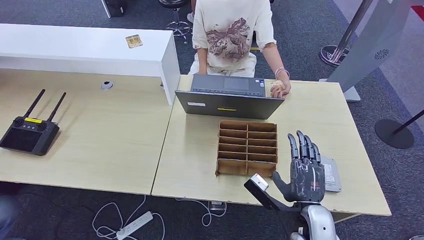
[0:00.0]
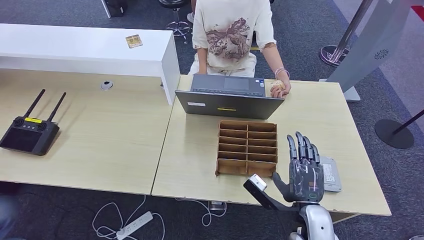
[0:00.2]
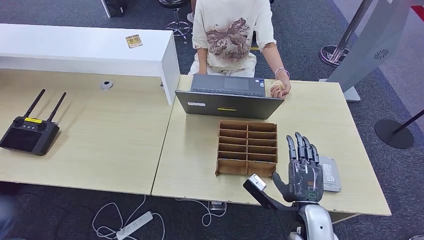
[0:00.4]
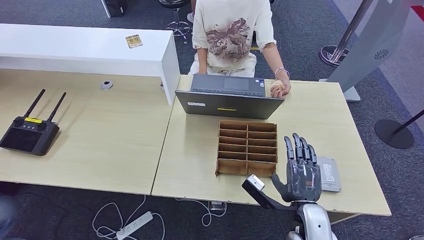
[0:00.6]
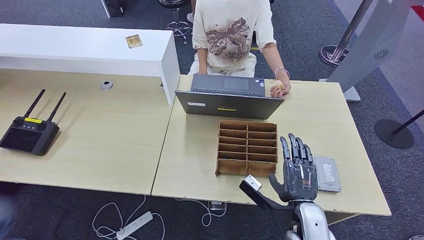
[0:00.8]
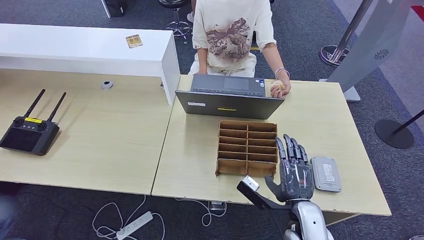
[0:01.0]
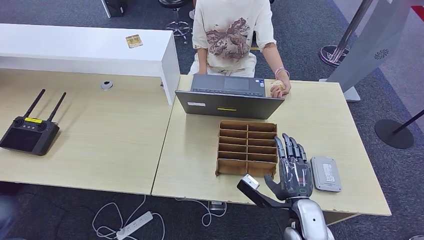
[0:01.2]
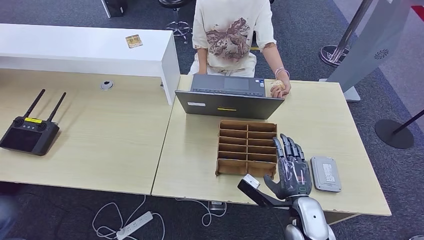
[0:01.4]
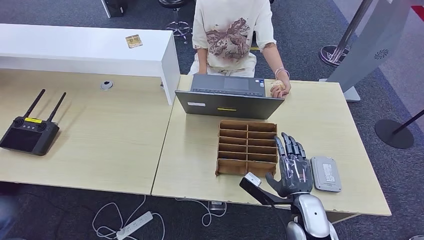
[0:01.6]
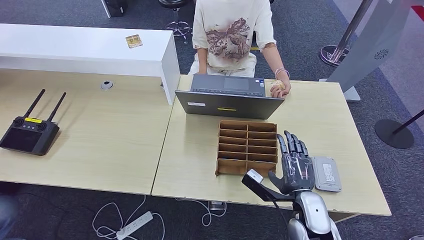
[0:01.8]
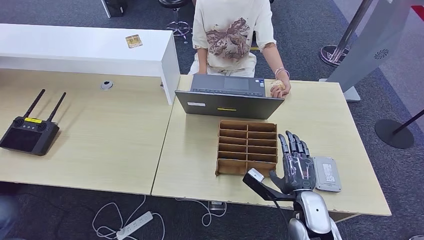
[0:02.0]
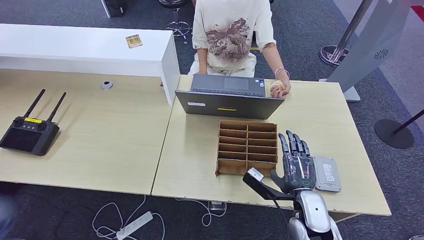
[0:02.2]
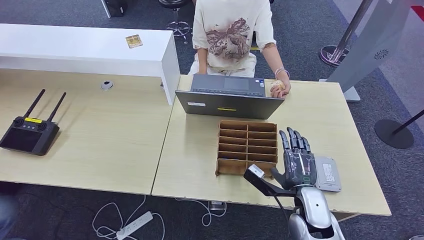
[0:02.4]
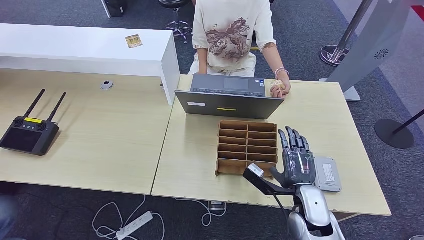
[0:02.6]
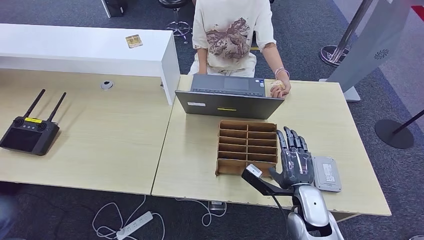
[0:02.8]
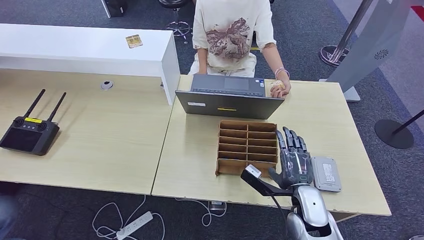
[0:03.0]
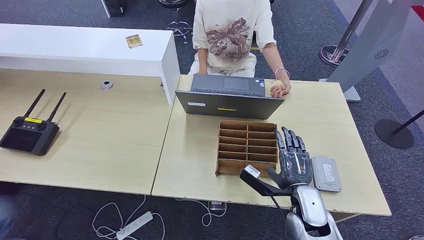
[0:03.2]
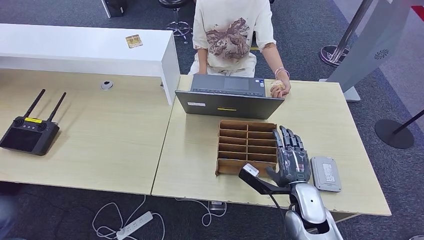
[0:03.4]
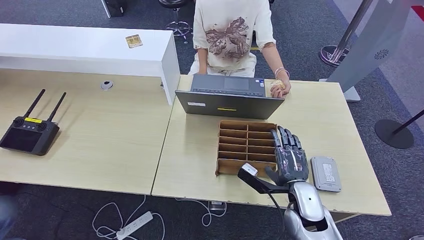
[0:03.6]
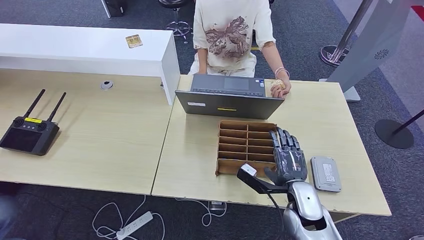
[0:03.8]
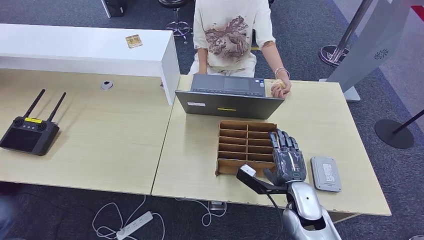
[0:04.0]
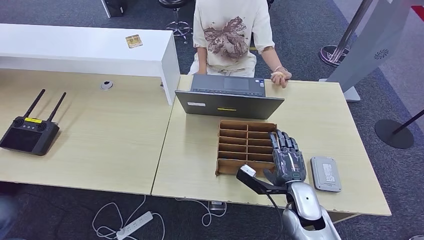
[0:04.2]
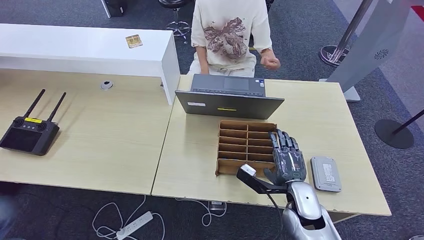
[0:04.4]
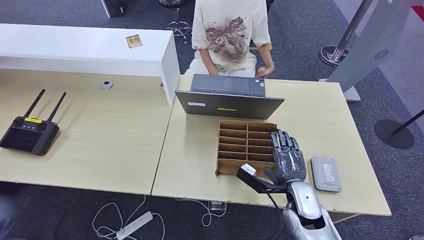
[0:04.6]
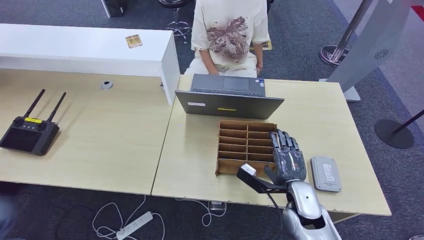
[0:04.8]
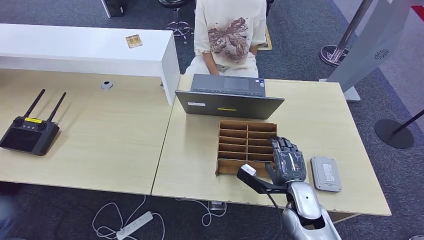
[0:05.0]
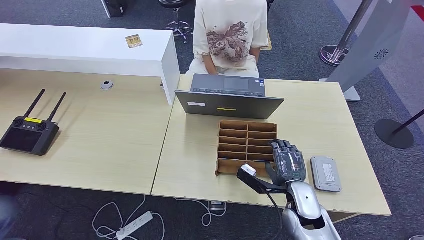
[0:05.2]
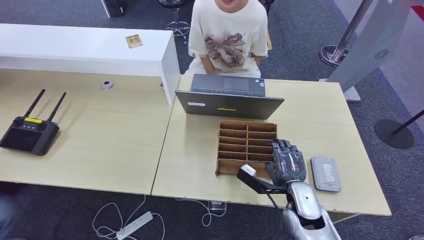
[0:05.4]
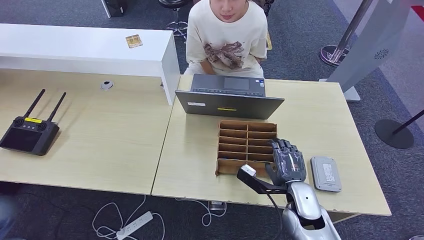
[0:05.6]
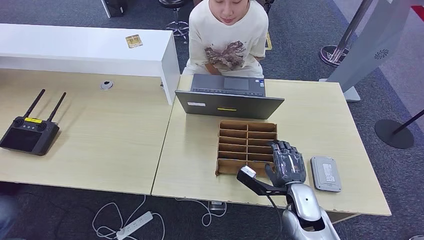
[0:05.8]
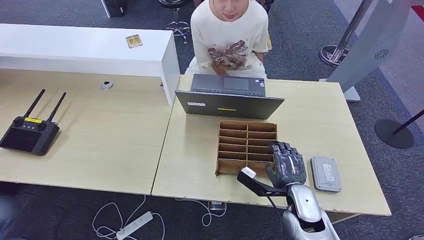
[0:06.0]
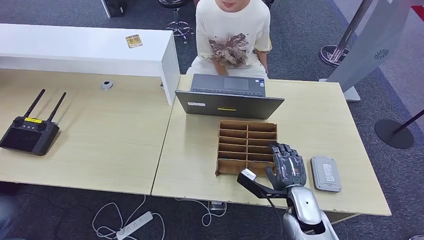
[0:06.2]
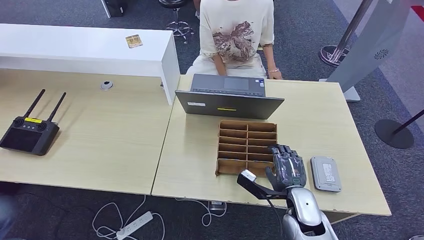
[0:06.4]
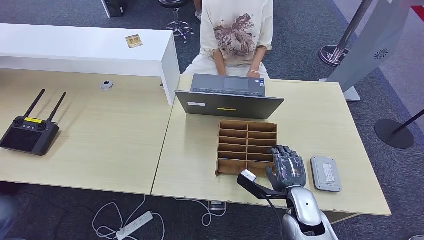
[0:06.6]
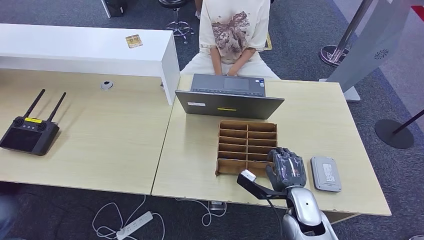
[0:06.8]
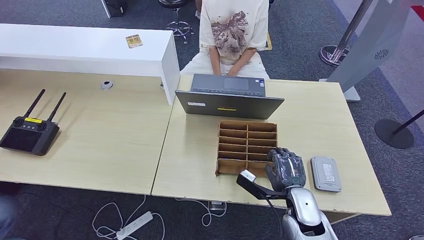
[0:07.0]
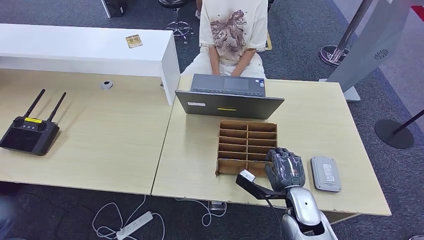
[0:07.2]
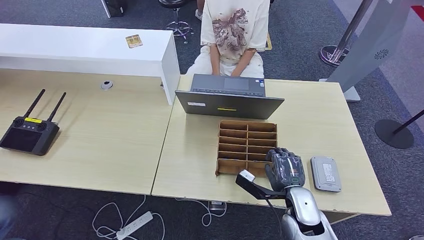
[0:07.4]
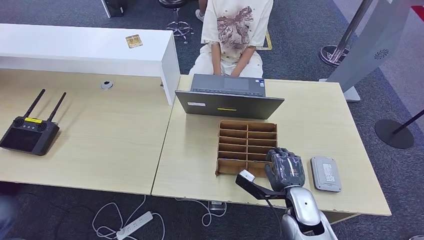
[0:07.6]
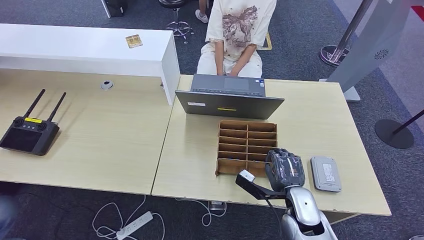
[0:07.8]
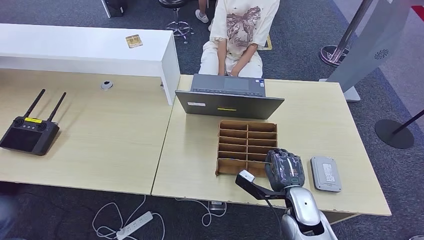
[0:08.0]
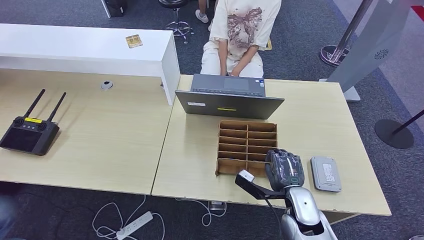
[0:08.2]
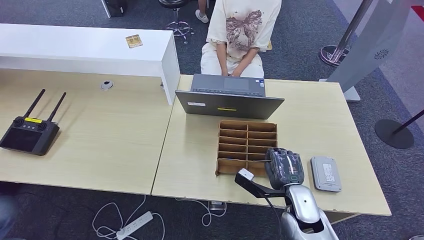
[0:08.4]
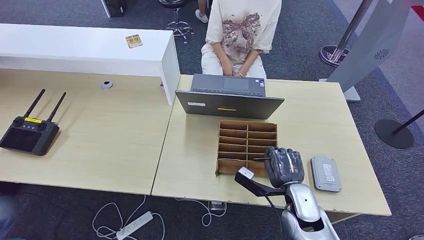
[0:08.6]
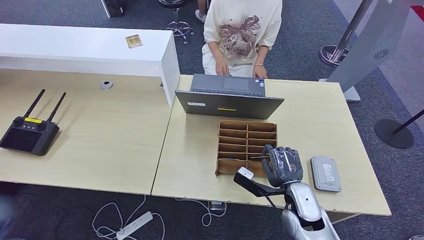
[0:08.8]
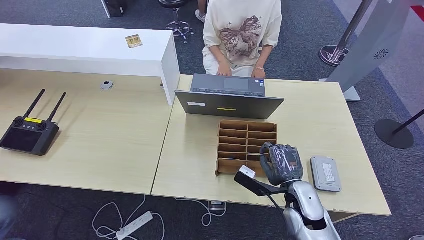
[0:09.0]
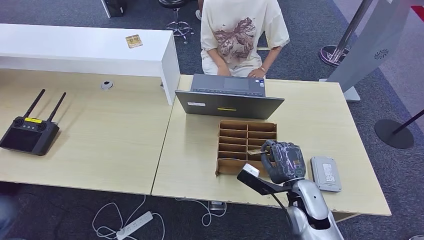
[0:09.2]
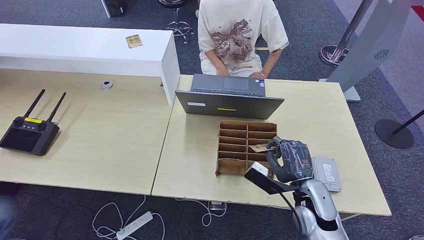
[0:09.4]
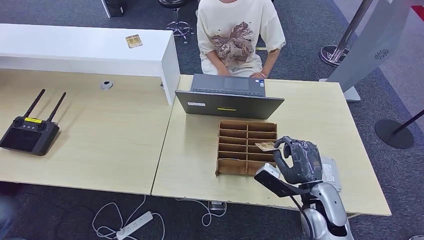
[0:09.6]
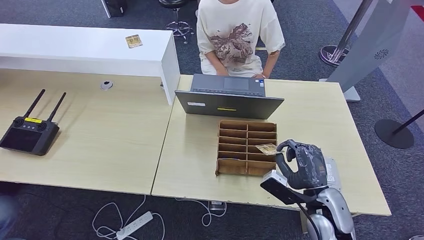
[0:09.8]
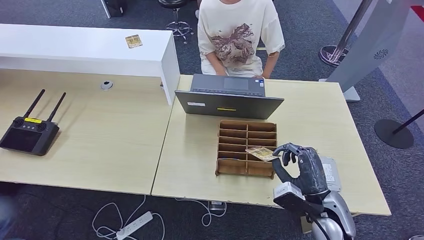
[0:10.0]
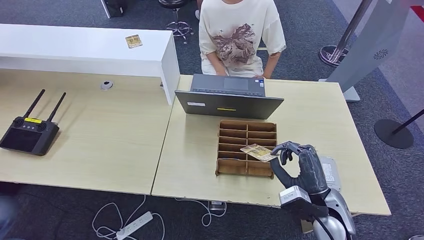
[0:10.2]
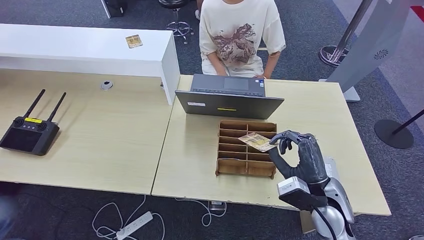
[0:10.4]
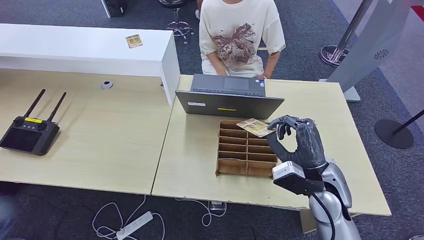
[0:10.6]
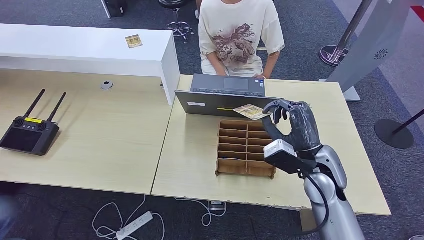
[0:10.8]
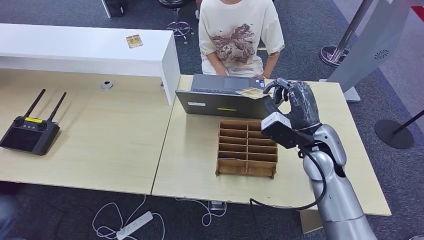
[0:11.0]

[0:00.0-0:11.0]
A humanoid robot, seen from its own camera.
Step, 0:02.4 to 0:09.4: Pick up the room key from the key card box.
0:00.0 to 0:03.2: There are only small adjustments of the hands.
0:03.2 to 0:04.8: The hands move only a little.
0:04.8 to 0:06.2: The two hands keep their place.
0:06.2 to 0:07.8: Both hands stay put.
0:09.4 to 0:11.0: The right hand moves upward and forward, about 15 cm.

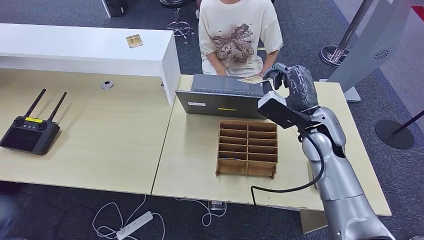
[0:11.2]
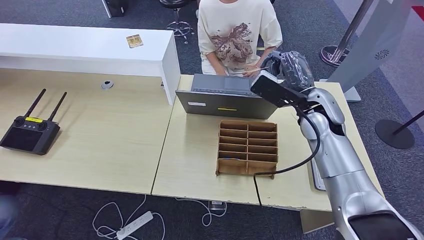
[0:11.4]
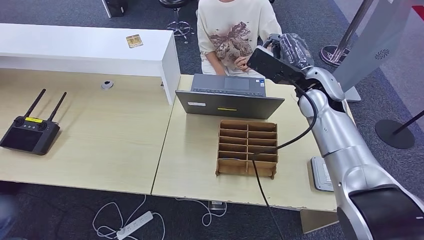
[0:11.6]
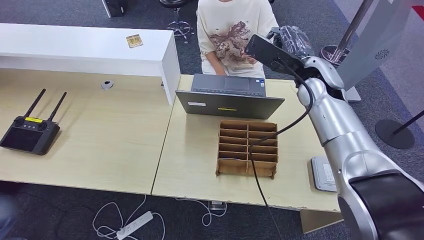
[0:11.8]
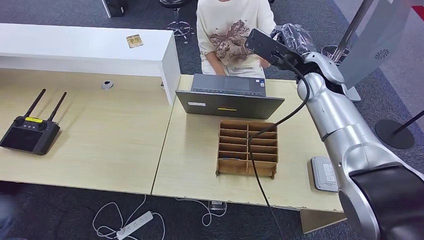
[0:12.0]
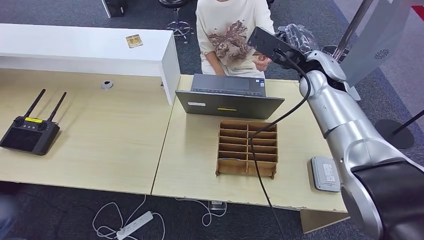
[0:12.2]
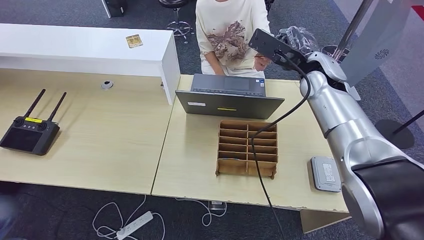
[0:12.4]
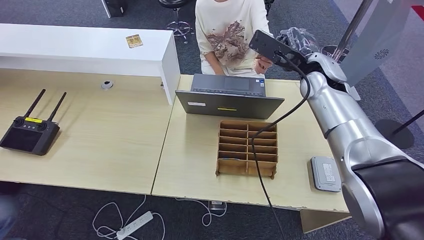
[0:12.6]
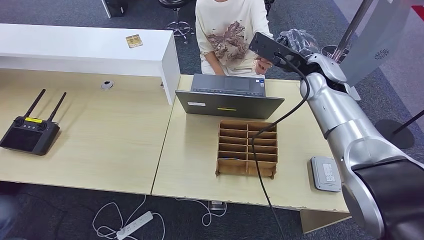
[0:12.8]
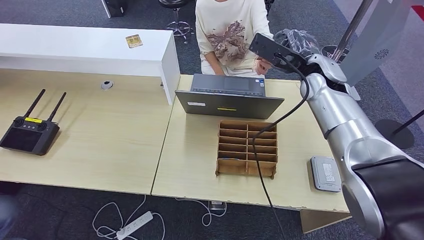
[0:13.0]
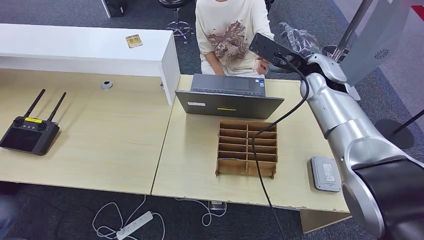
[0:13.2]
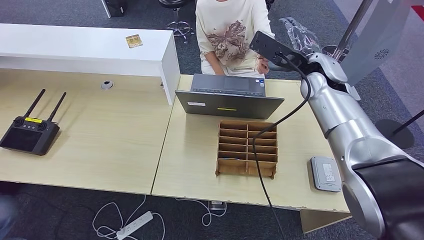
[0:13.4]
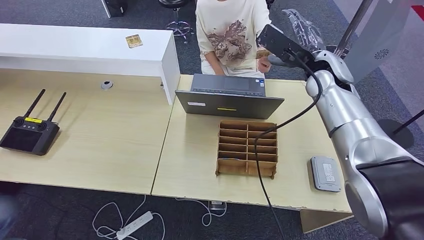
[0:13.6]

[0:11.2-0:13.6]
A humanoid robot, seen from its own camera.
Step, 0:11.2 to 0:13.6: Hand the room key to the person.
0:11.2 to 0:12.4: The right hand is displaced forward and upward by about 10 cm.
0:12.4 to 0:13.6: The hands stay close to where they were, moving slightly.
